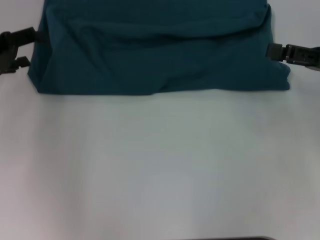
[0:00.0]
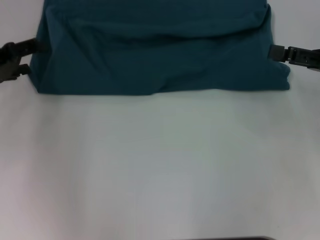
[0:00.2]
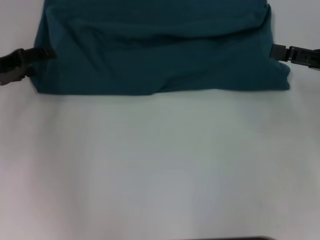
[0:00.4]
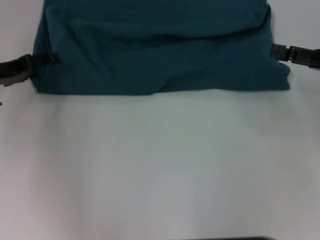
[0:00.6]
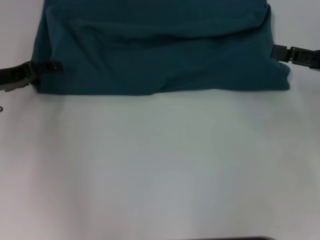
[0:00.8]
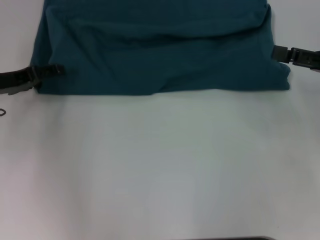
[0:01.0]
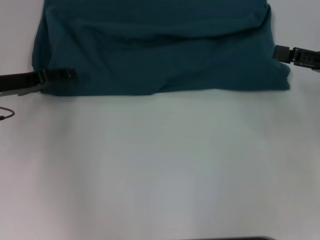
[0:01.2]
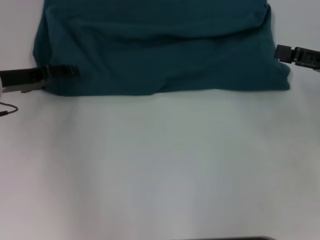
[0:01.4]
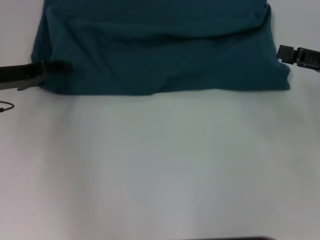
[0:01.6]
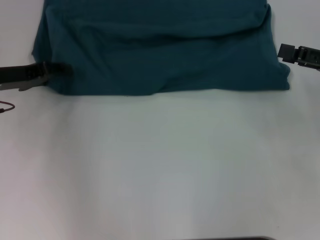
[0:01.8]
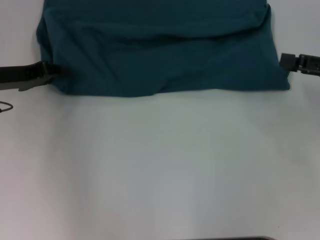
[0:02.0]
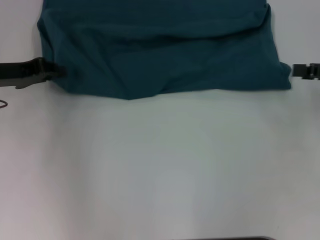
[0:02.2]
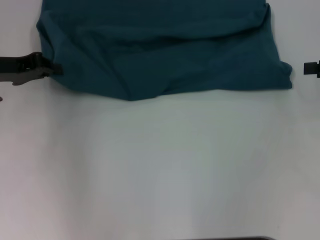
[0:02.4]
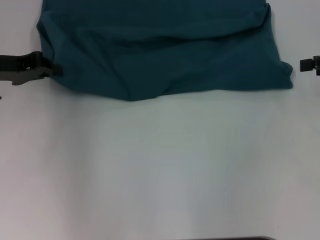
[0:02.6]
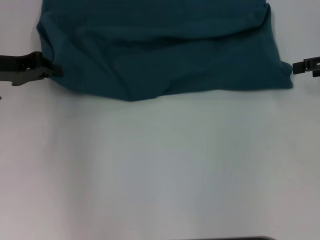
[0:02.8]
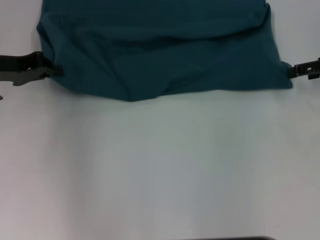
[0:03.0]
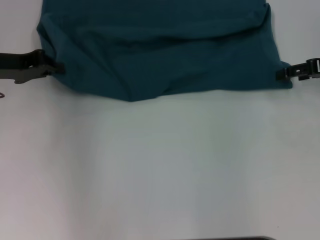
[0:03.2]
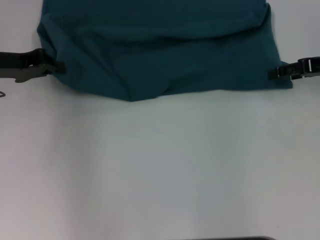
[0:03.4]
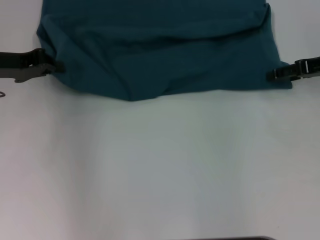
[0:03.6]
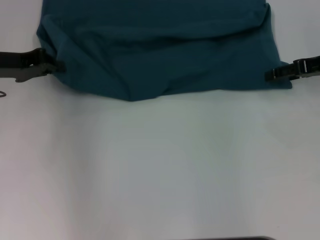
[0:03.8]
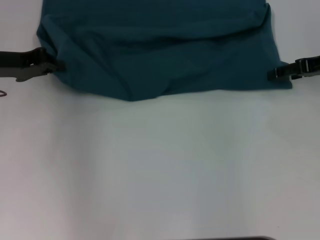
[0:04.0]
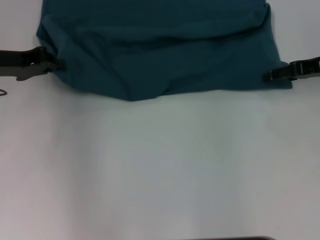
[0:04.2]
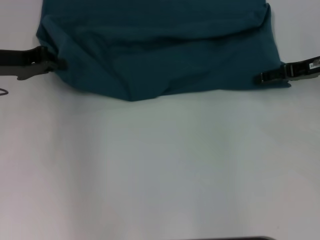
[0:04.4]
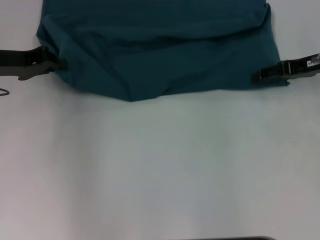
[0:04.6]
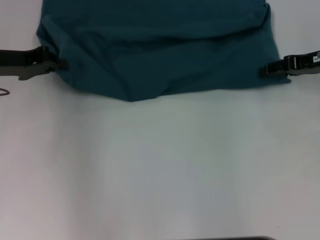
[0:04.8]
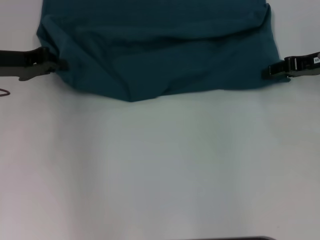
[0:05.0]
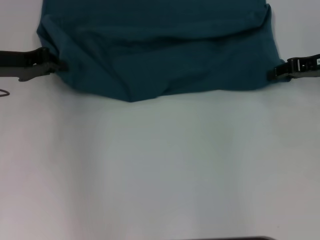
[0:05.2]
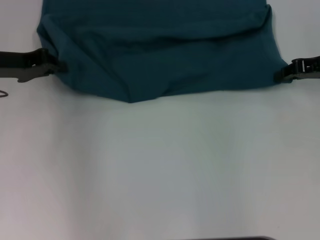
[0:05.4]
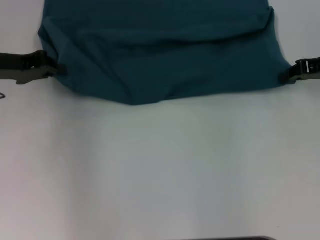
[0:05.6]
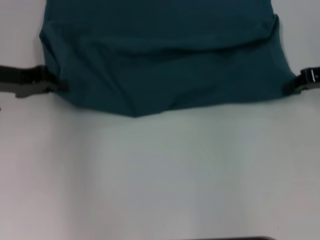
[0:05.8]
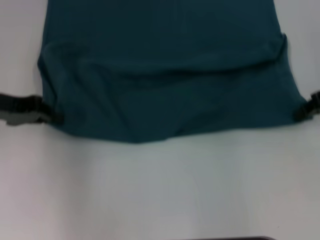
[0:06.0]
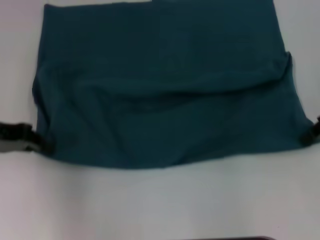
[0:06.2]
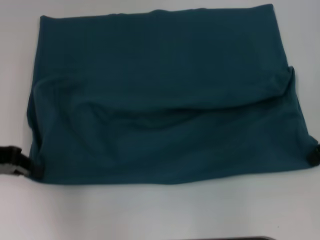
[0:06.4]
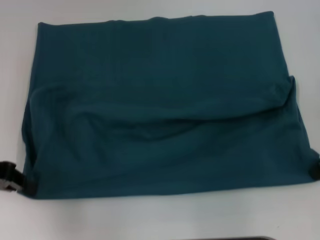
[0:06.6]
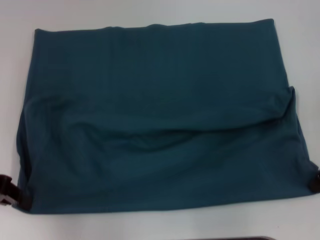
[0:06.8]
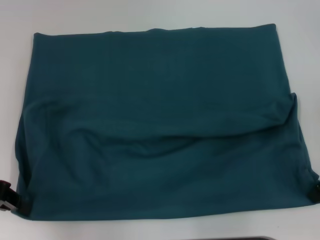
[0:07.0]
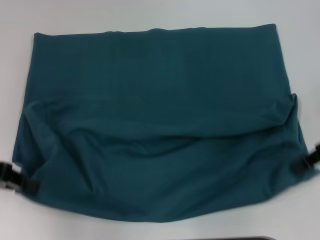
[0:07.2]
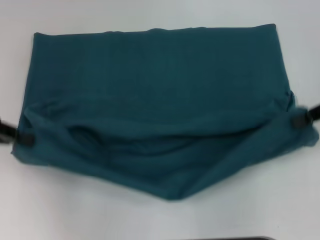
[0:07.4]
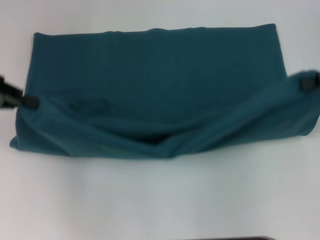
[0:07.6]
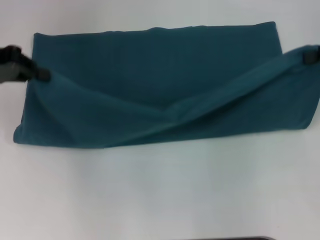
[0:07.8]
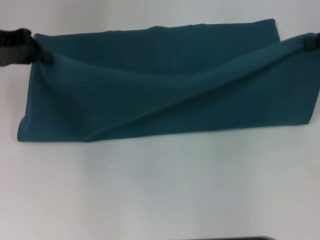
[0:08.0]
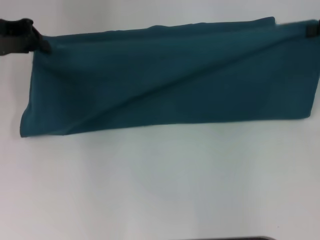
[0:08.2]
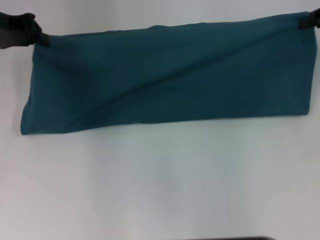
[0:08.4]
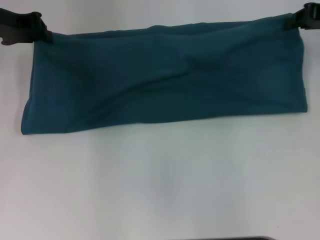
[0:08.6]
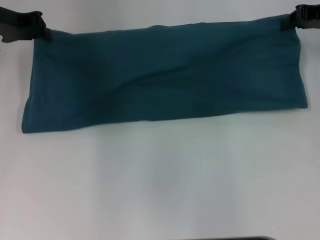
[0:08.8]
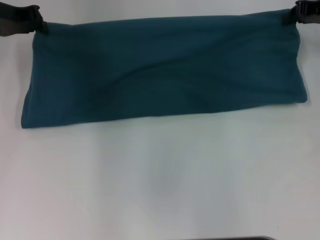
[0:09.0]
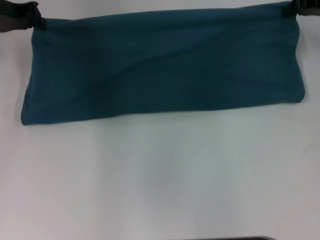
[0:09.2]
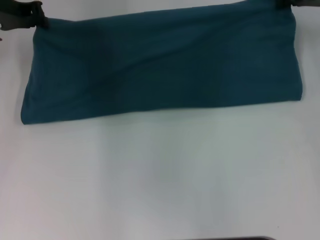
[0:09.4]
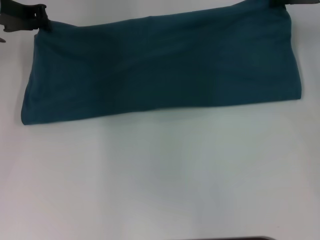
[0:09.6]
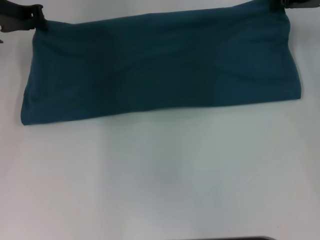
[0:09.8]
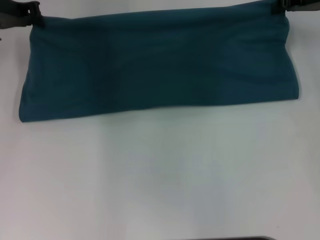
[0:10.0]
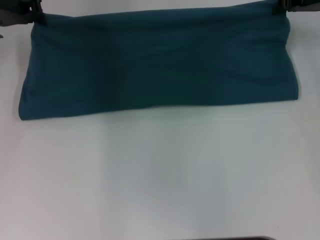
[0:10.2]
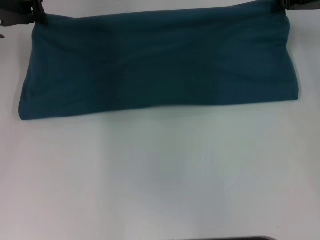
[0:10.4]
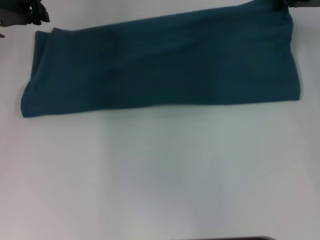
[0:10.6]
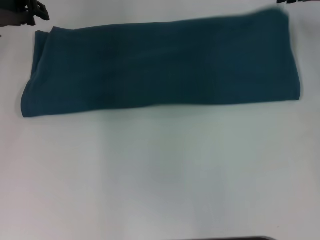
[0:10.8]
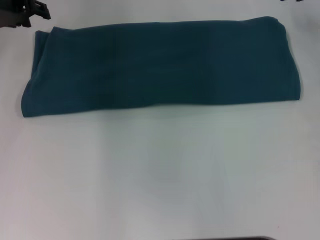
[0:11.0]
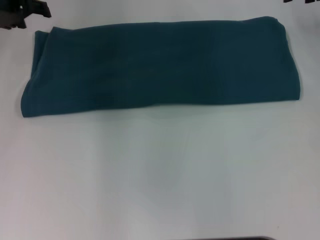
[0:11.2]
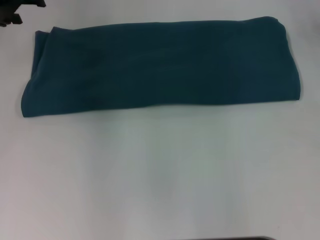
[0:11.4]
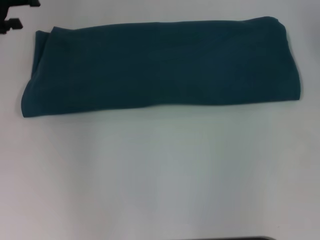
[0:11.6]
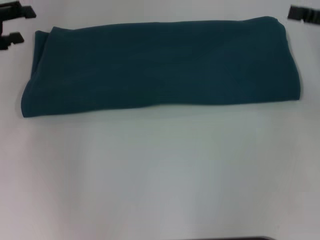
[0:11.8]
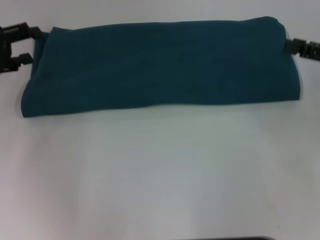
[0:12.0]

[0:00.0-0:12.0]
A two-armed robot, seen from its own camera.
Step, 0:00.0 to 0:06.8: Pull the clothes with your left hand.
Step, 0:00.0 to 0:06.8: Pull the clothes with your right hand.
Step, 0:07.0 to 0:10.8: Fold the clothes to the right.
0:00.0 to 0:01.6: The grippers move only a little.
0:01.6 to 0:03.0: The left gripper closes up. Meanwhile the right gripper is displaced forward by roughly 5 cm.
0:03.0 to 0:04.4: The right gripper moves approximately 5 cm.
0:04.4 to 0:06.0: The right gripper closes its fingers.
0:06.0 to 0:07.6: Both grippers move upward, approximately 5 cm.
0:07.6 to 0:09.0: The left gripper shifts some 10 cm forward and to the right; the right gripper travels forward by roughly 10 cm.
0:09.0 to 0:10.4: The grippers stay close to where they were, moving slightly.
0:10.4 to 0:12.0: The right gripper travels backward by some 15 cm, and opens its fingers; the left gripper travels backward and to the left by approximately 15 cm, and opens.

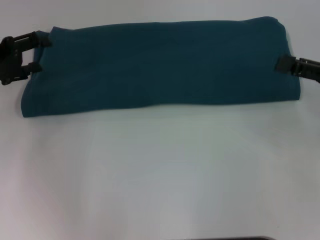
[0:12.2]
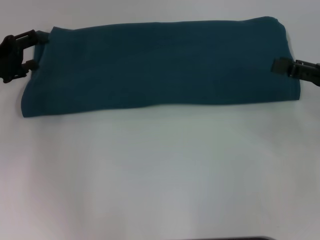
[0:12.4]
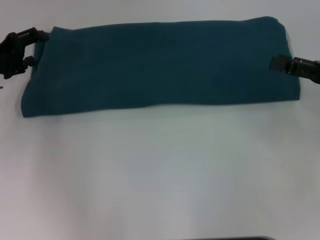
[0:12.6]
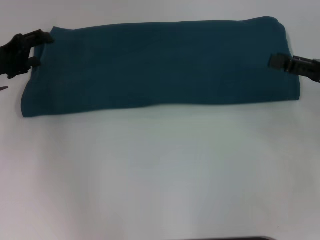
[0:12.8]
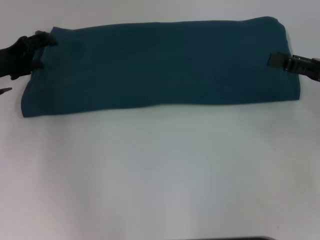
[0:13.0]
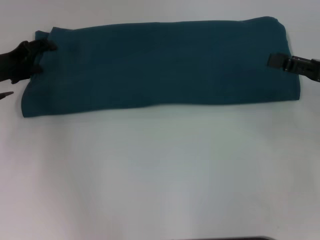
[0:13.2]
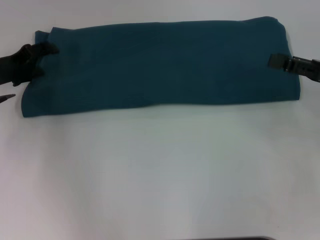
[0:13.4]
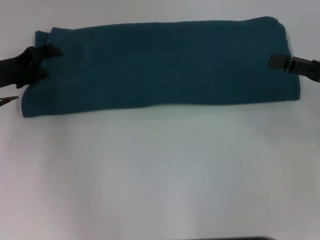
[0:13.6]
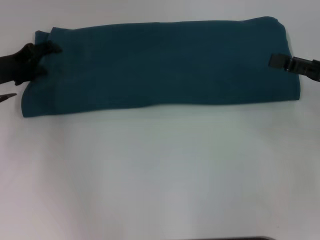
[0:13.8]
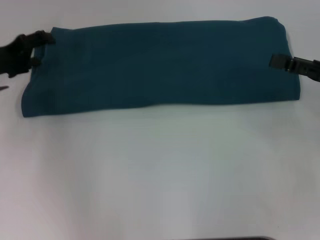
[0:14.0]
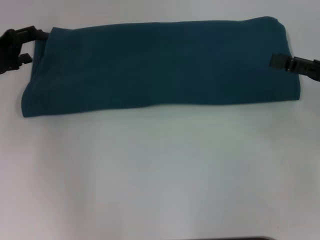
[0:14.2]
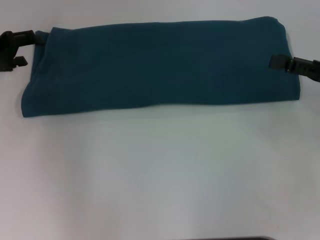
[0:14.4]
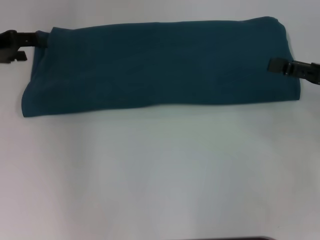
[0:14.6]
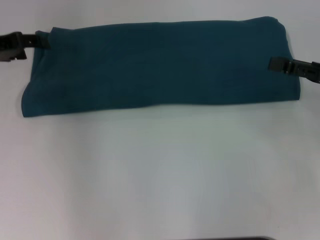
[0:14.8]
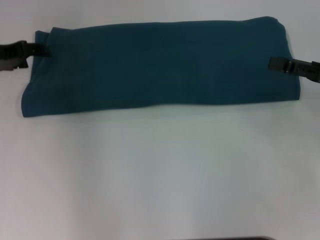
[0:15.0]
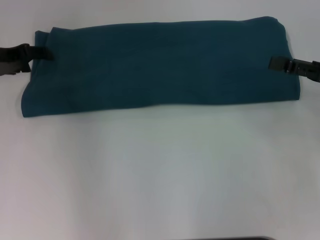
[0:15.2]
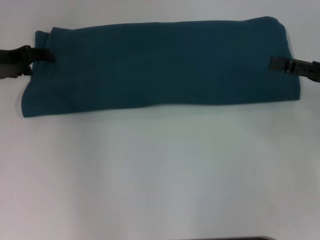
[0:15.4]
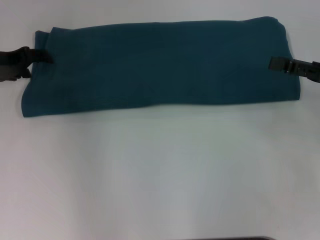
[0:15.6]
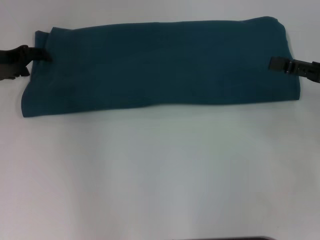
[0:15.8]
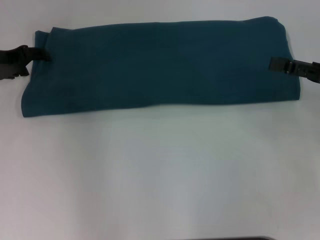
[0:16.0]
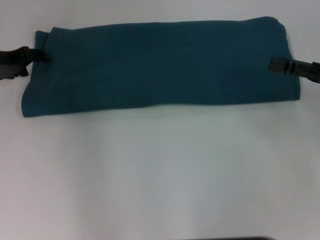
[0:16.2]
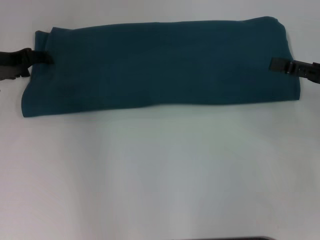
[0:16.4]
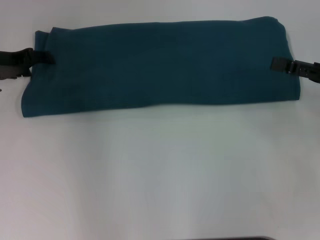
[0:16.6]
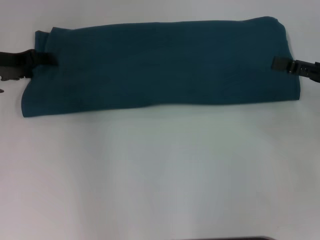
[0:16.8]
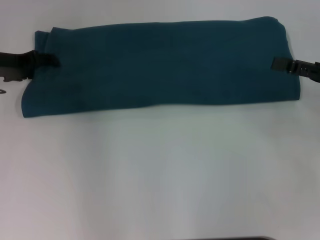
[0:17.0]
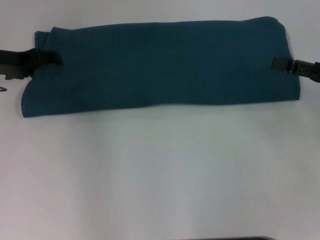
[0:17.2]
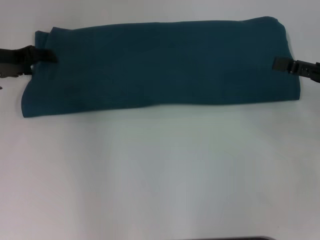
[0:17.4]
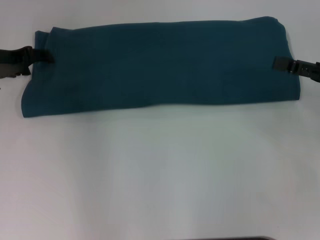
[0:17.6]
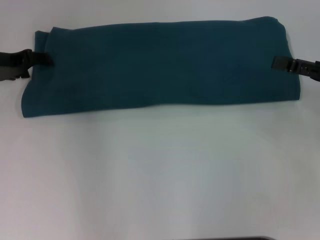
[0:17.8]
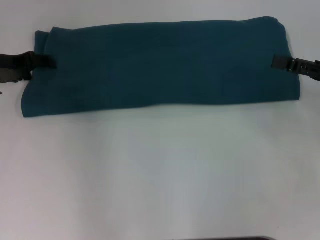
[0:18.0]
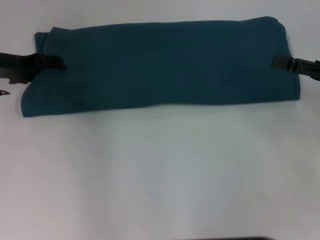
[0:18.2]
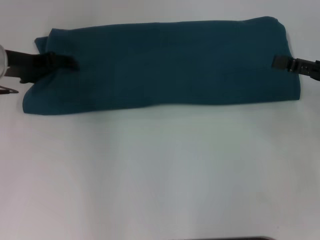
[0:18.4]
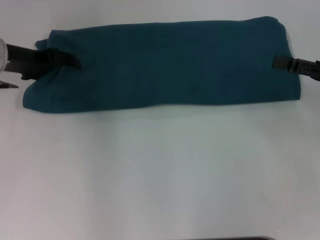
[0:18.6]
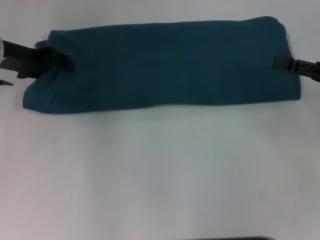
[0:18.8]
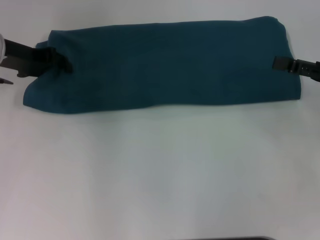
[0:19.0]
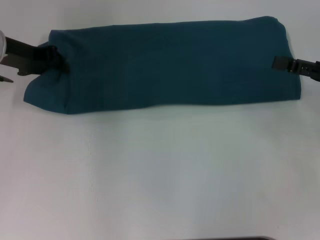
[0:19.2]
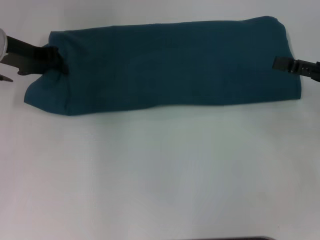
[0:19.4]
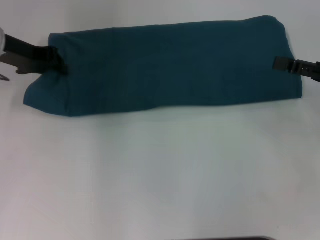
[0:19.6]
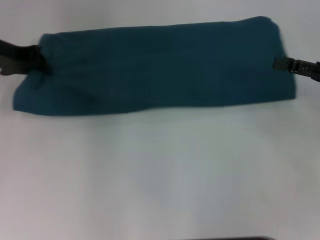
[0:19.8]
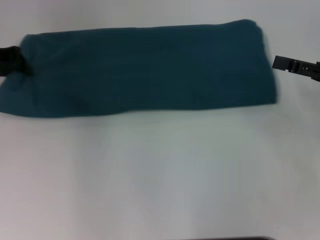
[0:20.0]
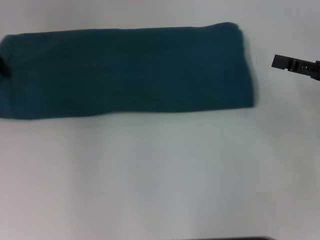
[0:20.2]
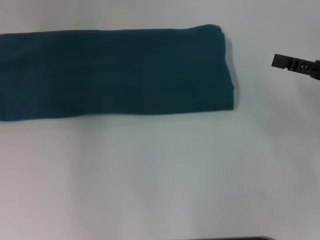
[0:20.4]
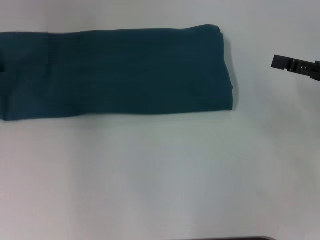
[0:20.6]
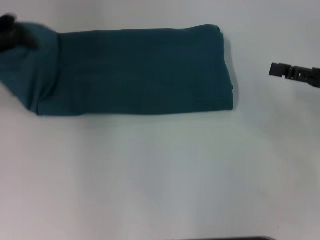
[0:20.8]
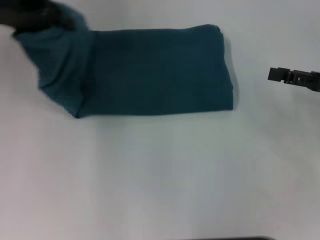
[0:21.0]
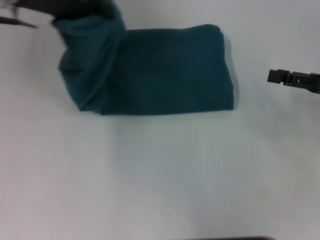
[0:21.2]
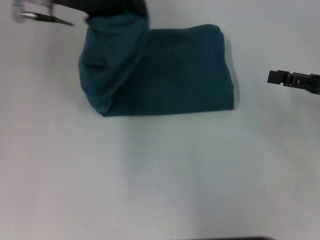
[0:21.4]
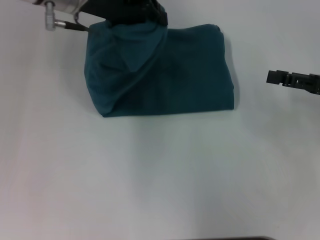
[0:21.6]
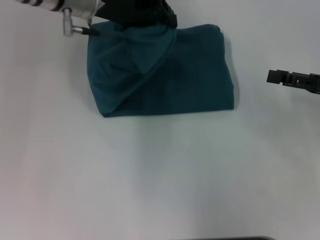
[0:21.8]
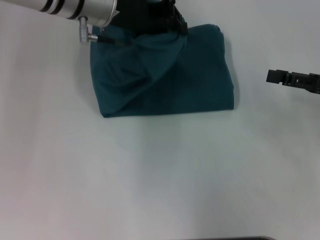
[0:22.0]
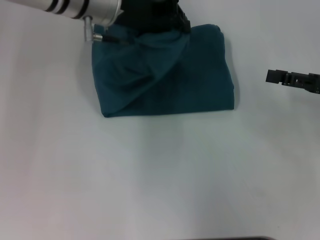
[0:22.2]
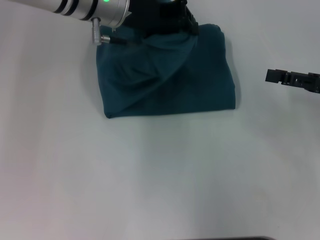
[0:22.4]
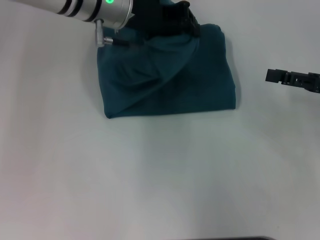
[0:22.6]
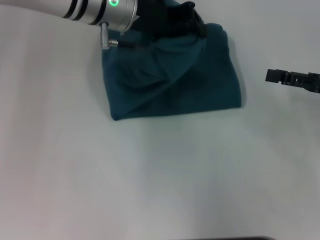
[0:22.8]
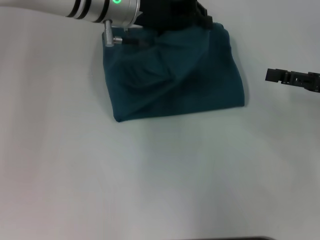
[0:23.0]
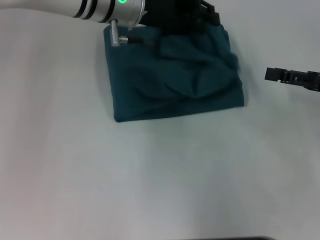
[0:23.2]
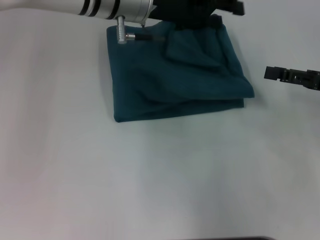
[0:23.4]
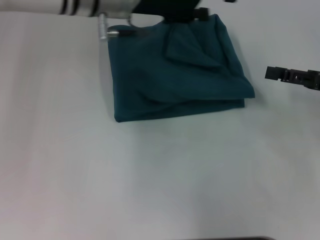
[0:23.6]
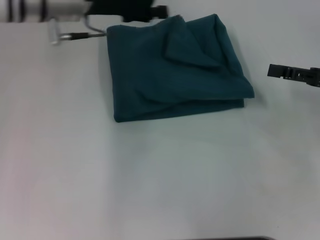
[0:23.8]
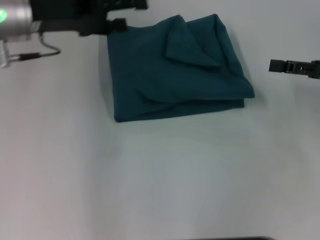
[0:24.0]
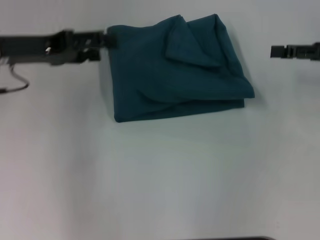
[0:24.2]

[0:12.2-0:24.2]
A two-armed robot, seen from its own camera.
Step, 0:12.2 to 0:23.4: Fold the clothes to the left.
0:12.2 to 0:13.8: The grippers make only small movements.
0:16.6 to 0:18.2: Neither gripper changes place.
0:18.2 to 0:19.8: The left gripper closes its fingers.
0:19.8 to 0:21.2: The left gripper moves upward and to the right, some 10 cm.
0:21.2 to 0:22.6: The left gripper moves to the right, approximately 15 cm.
0:22.6 to 0:24.2: The left gripper moves to the left, approximately 15 cm, and opens up. The right gripper ends up roughly 5 cm from where it was.
